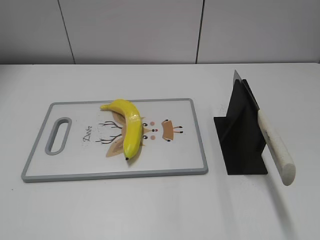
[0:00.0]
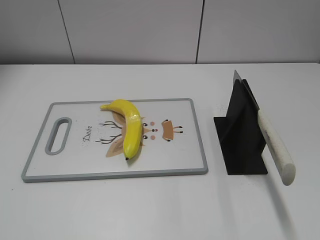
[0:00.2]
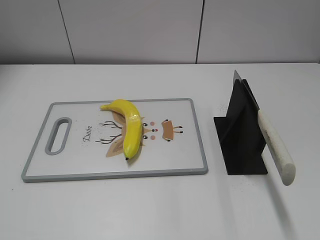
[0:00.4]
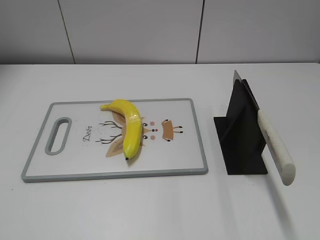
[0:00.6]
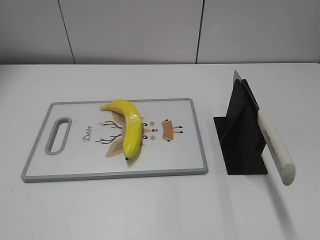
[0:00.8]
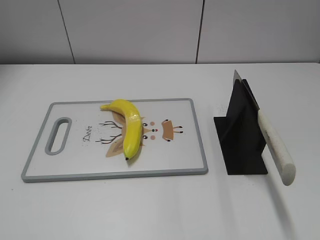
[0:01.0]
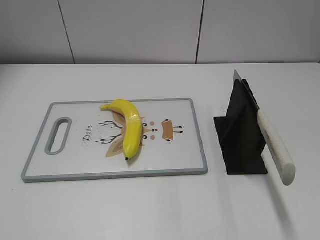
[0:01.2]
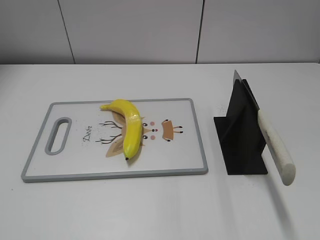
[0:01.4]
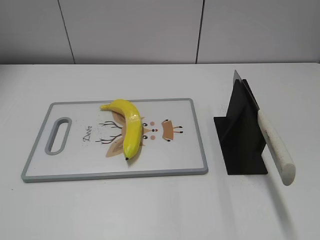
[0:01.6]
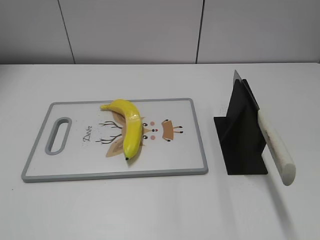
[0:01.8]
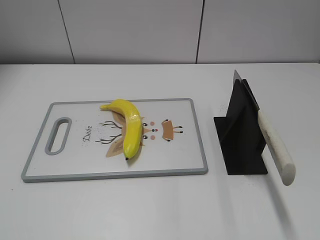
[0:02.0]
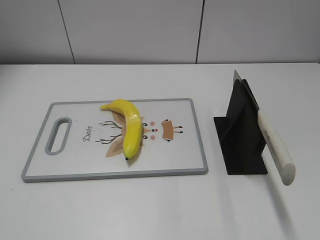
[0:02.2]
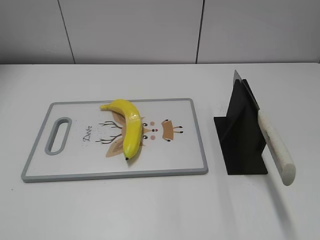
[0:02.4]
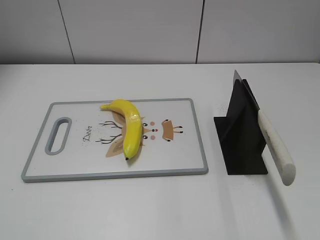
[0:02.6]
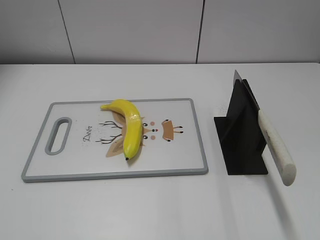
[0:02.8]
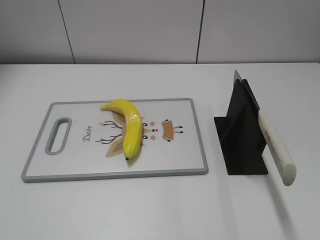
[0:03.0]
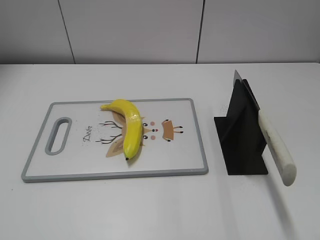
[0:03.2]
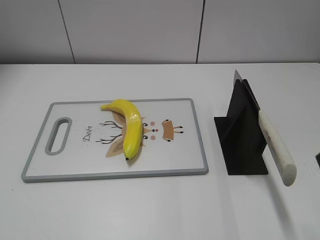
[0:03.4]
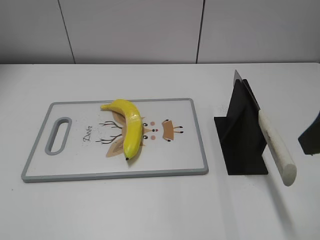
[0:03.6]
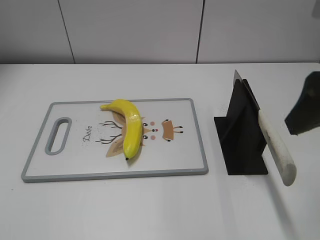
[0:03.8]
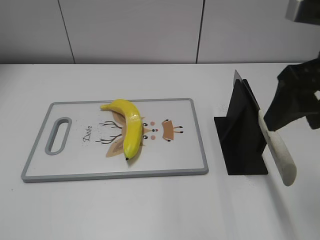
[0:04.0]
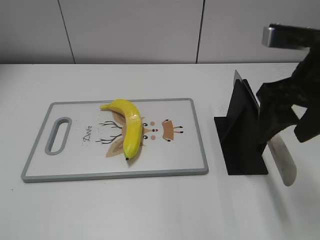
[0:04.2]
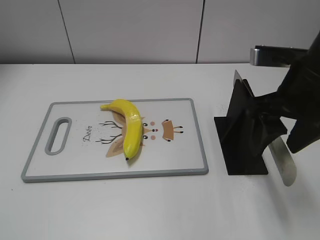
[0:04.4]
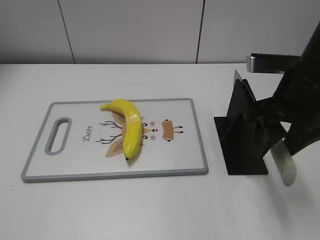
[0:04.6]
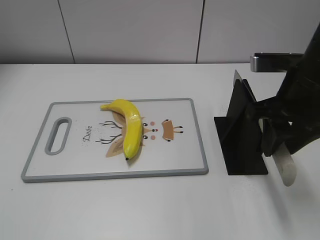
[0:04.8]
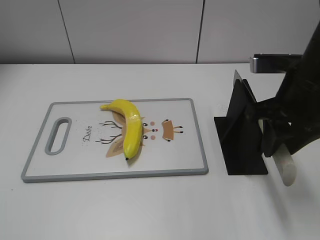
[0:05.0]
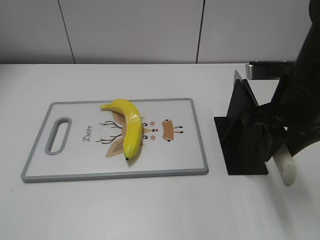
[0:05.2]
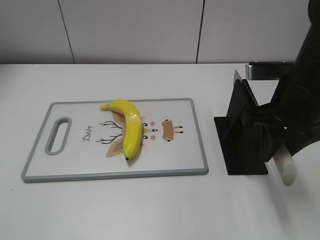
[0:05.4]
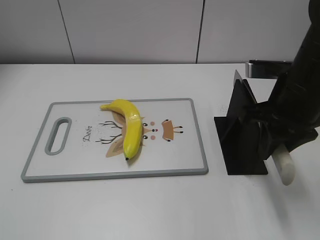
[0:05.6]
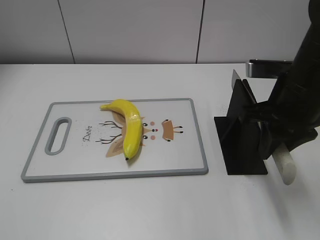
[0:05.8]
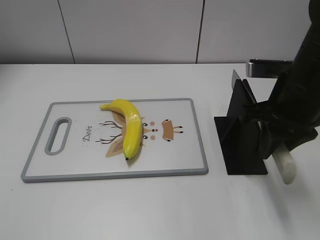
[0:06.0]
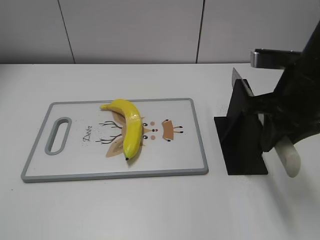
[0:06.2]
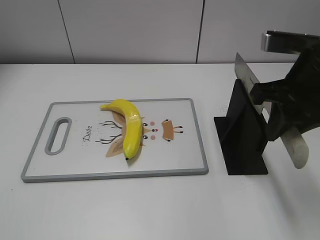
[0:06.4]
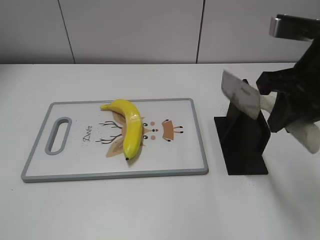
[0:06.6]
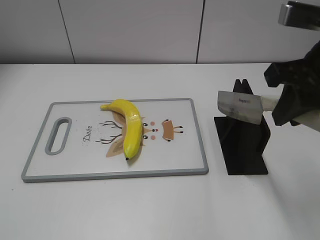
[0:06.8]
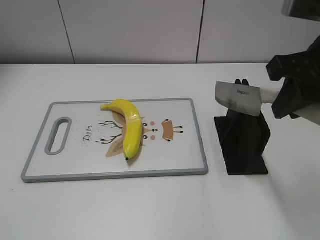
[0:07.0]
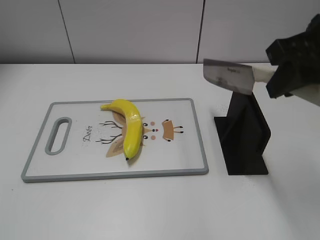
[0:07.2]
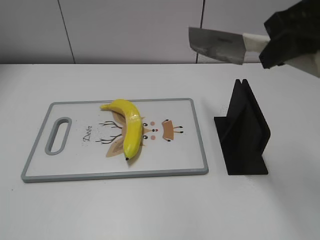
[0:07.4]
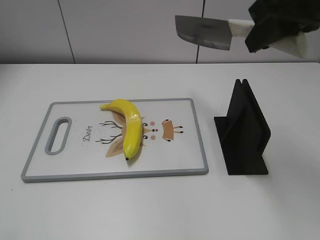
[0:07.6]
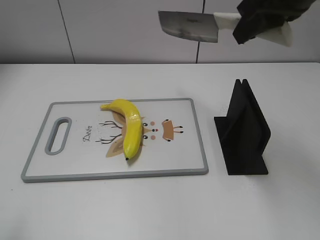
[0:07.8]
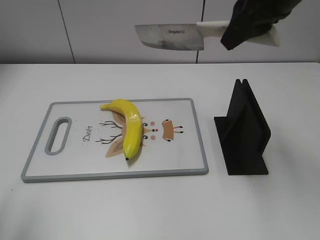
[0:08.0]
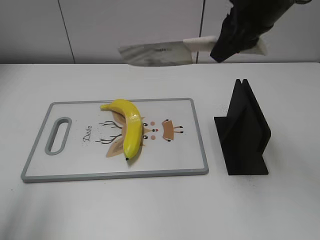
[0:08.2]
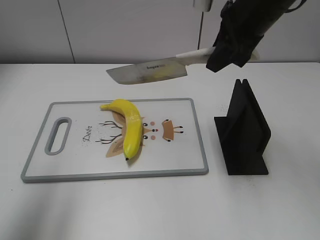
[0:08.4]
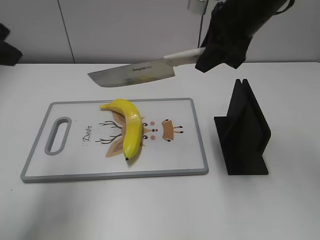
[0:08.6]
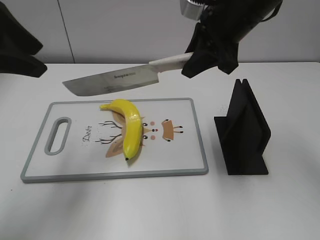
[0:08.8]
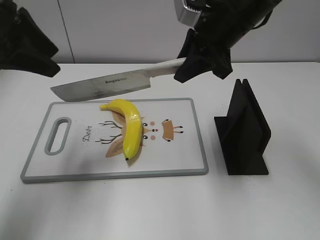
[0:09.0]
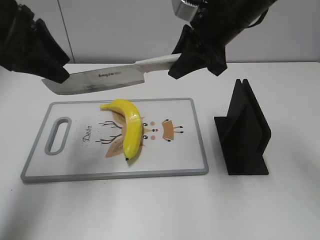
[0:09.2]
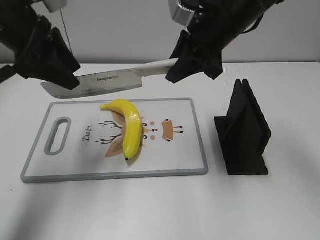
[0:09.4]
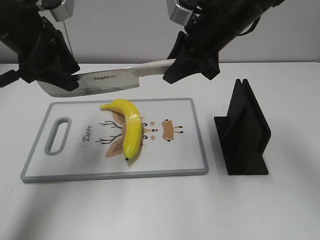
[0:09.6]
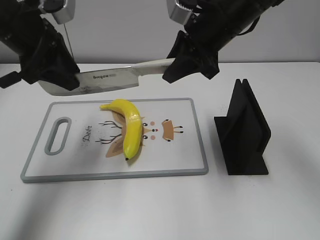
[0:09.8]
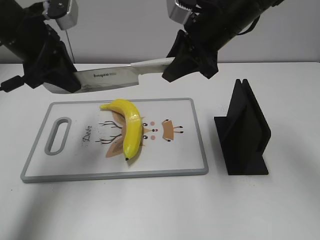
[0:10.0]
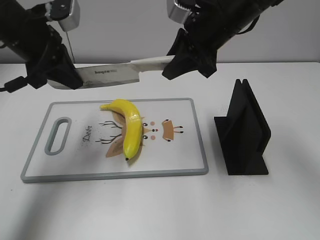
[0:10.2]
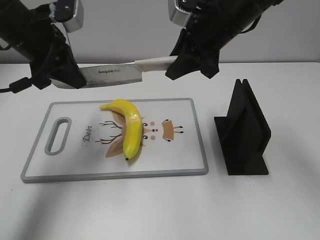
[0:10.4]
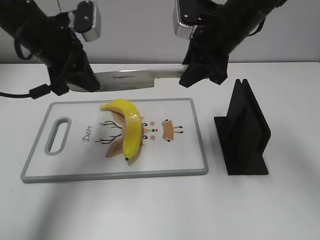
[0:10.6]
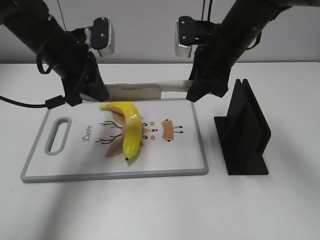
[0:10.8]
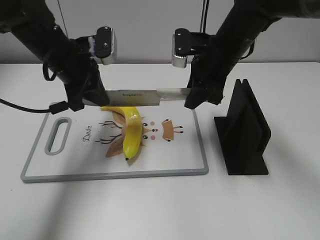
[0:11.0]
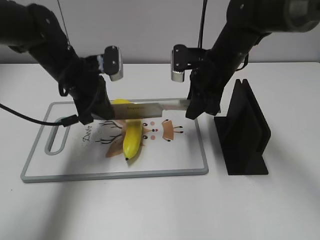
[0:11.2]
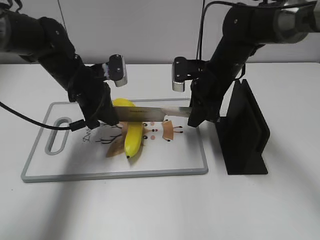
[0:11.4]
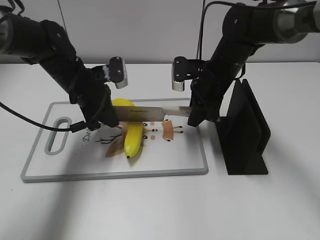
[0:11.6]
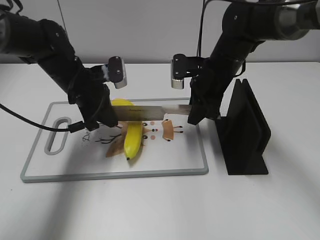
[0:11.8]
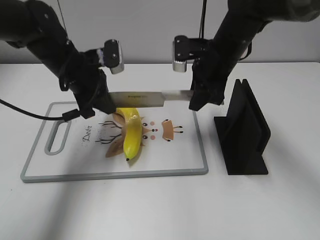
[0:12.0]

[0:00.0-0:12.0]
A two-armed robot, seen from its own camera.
Task of the whole recording: cut plastic banana.
Step, 0:00.0 to 0:07.2: Grab the knife handle with your right hand.
0:03.0 to 0:04.4: The right gripper heads forward and to the left, covering some 20 cm.
0:04.4 to 0:06.0: The right gripper closes its fingers.
0:06.0 to 0:07.6: The left gripper goes about 5 cm forward; the right gripper goes roughly 15 cm upward.
0:07.6 to 0:09.0: The right gripper is displaced downward, forward and to the left by approximately 15 cm; the left gripper shifts some 25 cm forward.
0:09.0 to 0:10.4: The left gripper shifts approximately 10 cm downward and forward, and closes up.
0:10.4 to 0:12.0: The two grippers go approximately 10 cm downward.

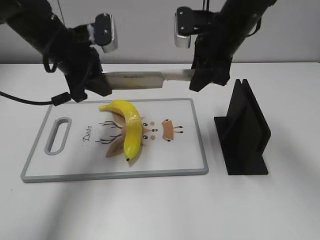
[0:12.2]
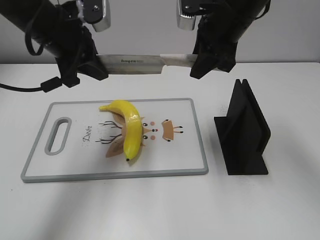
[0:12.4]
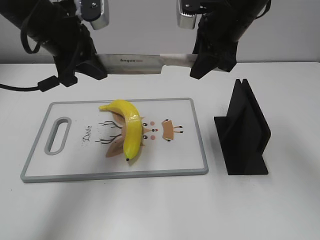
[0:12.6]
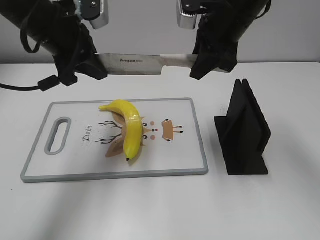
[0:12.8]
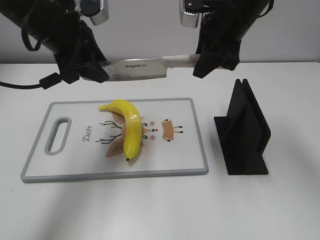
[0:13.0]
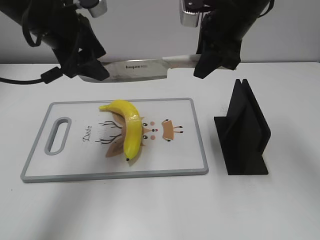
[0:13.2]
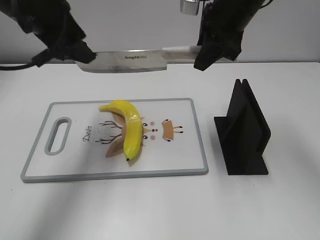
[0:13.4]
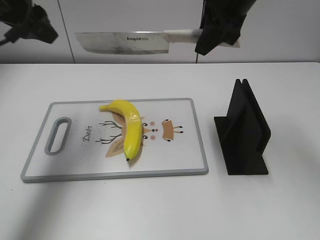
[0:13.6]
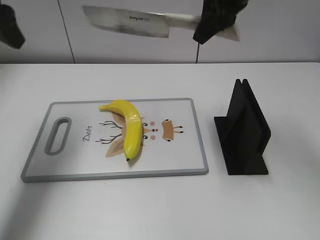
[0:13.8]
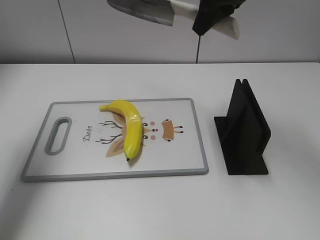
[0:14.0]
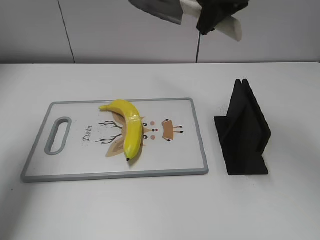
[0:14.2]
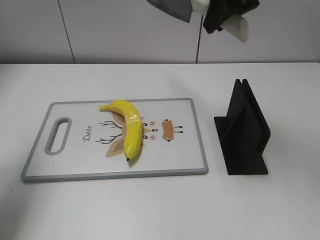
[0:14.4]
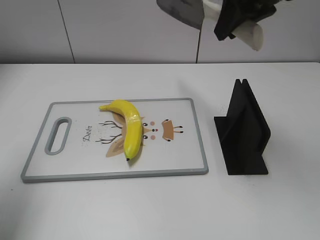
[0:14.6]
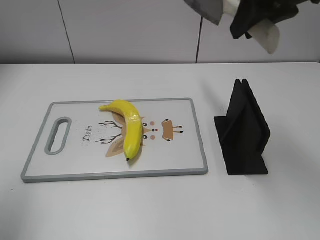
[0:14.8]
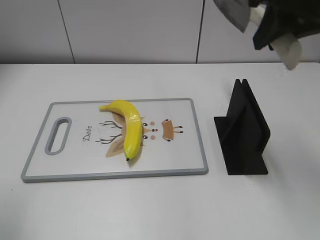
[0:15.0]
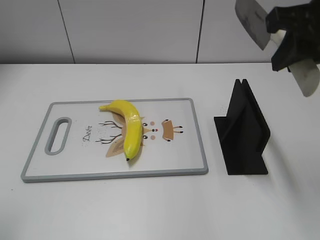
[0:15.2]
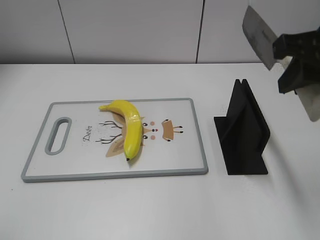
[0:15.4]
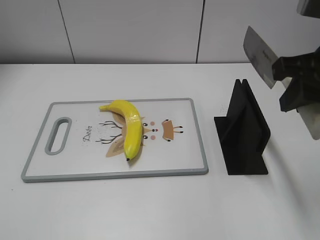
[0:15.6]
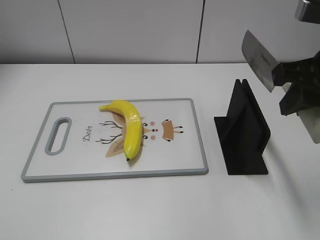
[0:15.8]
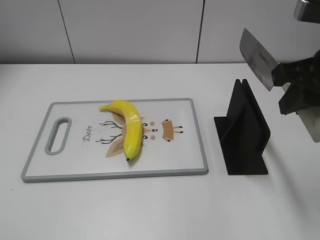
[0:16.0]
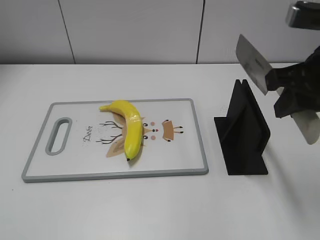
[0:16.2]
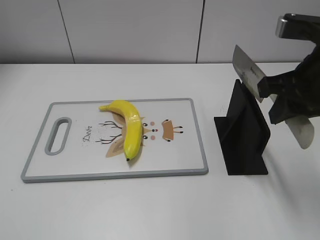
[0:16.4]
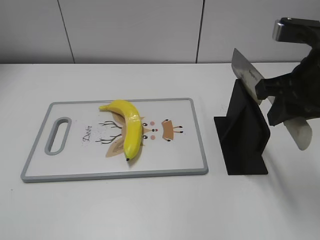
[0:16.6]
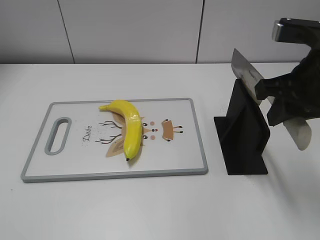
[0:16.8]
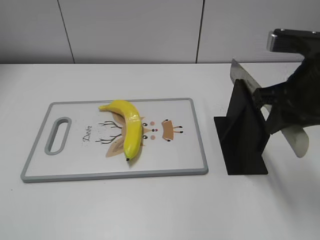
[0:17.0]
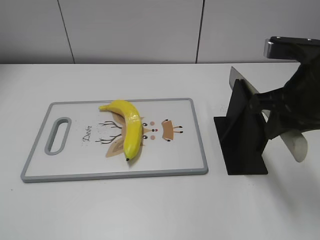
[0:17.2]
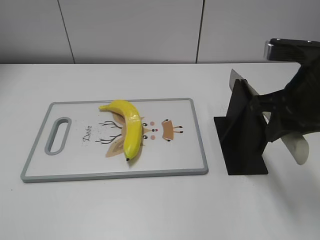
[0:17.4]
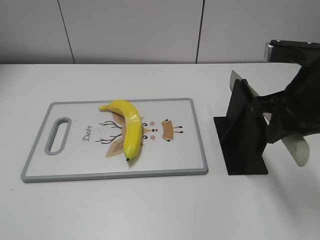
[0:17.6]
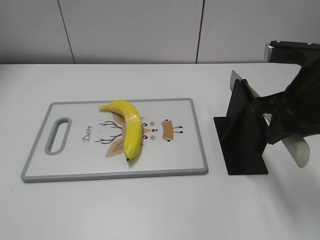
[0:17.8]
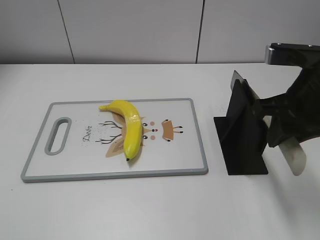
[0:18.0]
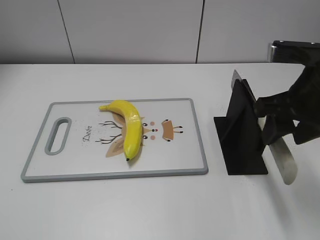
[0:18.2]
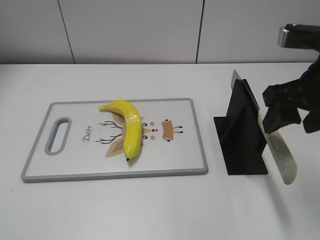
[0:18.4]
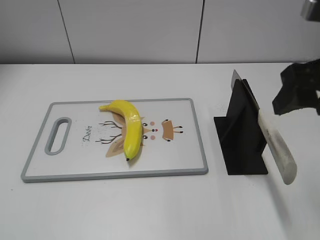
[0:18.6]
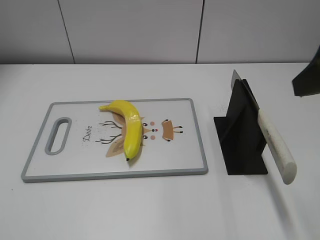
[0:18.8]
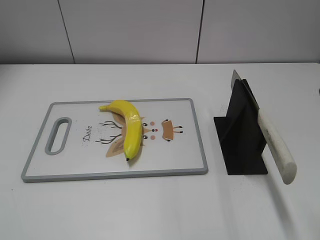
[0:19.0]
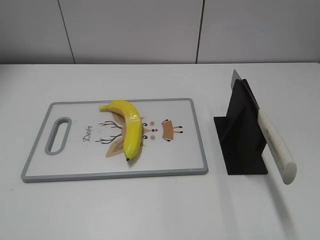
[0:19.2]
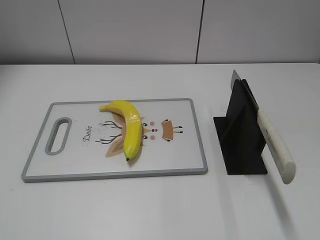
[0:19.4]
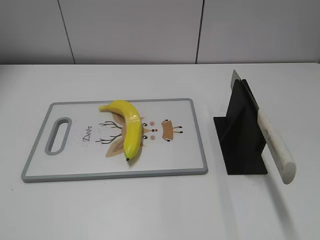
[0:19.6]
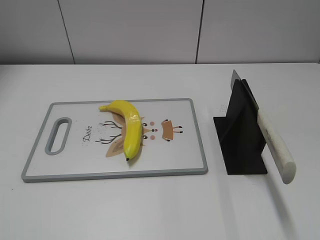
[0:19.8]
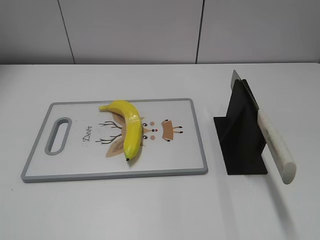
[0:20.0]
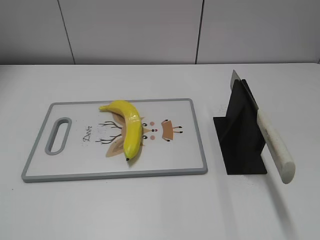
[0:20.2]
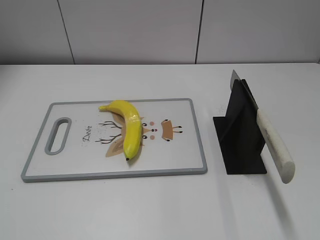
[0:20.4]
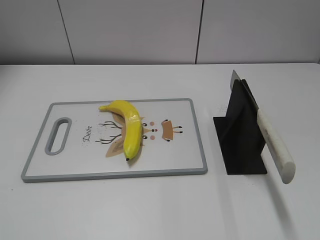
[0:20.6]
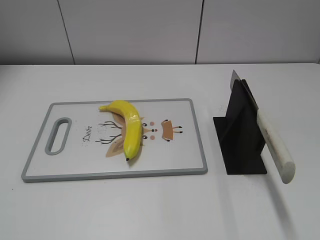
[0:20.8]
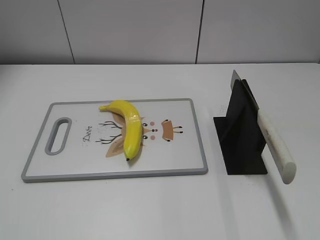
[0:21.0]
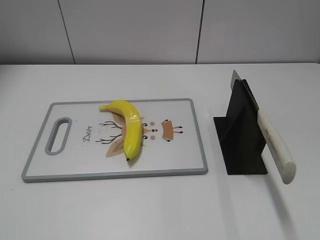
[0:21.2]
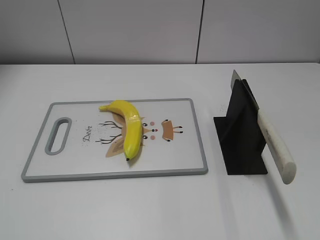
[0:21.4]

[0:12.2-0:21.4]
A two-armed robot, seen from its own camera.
Task of the whole recording: cut plastic banana.
Step, 0:12.8 to 0:14.2: Cut the banana with your right hand.
Step, 0:14.4 to 0:15.4: Secure the blade with your left hand.
Step, 0:15.6 to 0:21.4: Place the knife on the storage rack with your right hand.
0:12.2 to 0:13.8: The left gripper travels to the left and upward by approximately 15 cm, and opens up. The right gripper is displaced upward by approximately 10 cm.
0:13.8 to 0:15.2: The left gripper travels backward by some 20 cm; the right gripper goes approximately 15 cm backward and to the right.
0:15.2 to 0:16.8: The right gripper shifts approximately 10 cm downward.
0:16.8 to 0:18.4: The right gripper opens its fingers.
0:18.4 to 0:19.8: The right gripper travels backward and to the right by about 25 cm.
